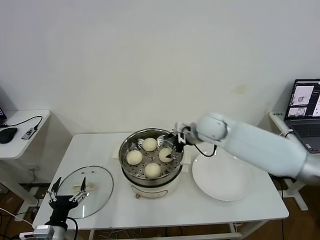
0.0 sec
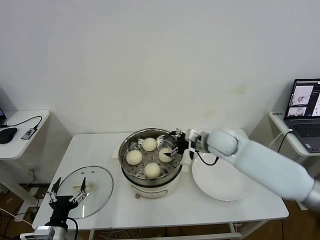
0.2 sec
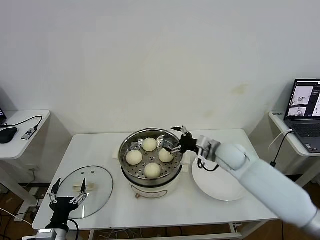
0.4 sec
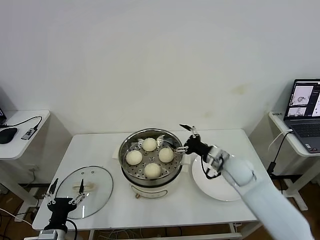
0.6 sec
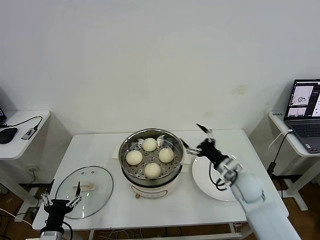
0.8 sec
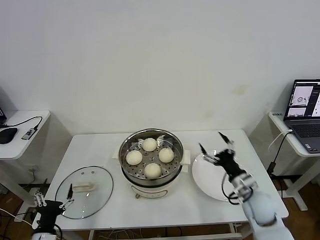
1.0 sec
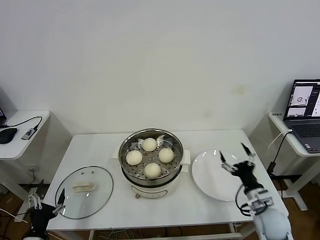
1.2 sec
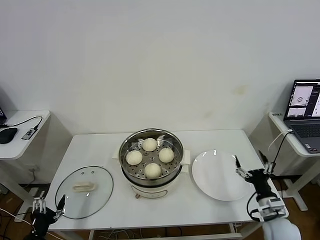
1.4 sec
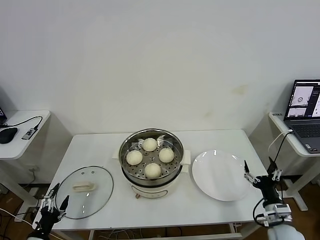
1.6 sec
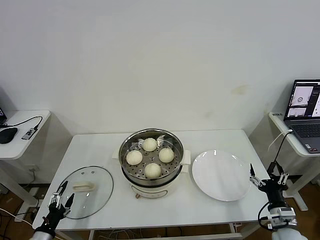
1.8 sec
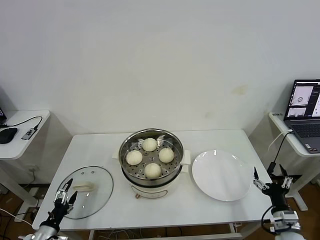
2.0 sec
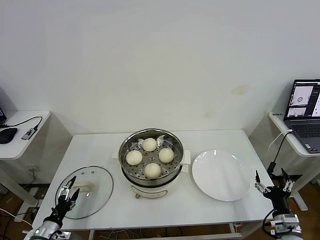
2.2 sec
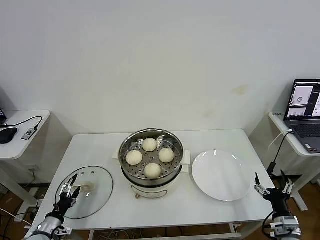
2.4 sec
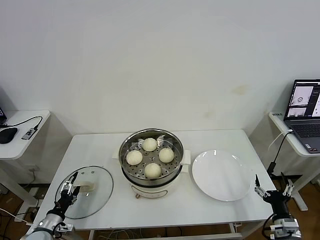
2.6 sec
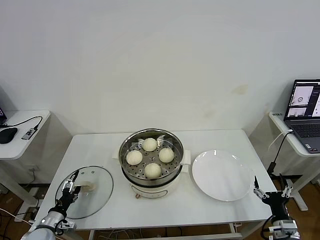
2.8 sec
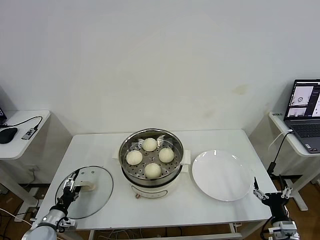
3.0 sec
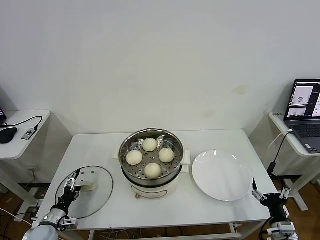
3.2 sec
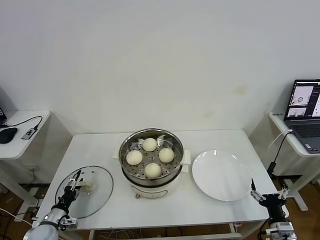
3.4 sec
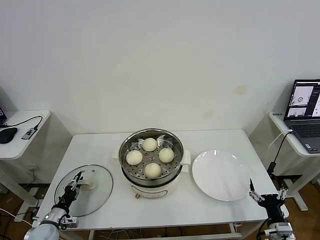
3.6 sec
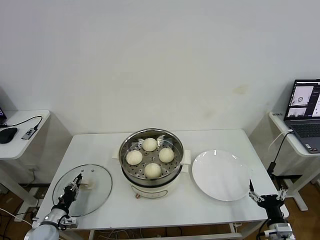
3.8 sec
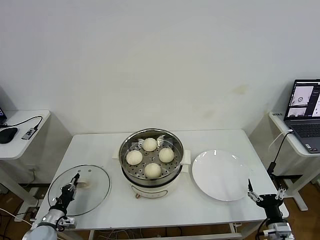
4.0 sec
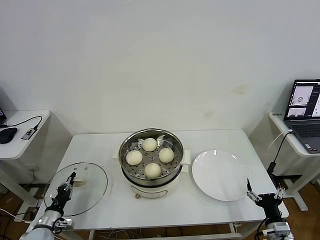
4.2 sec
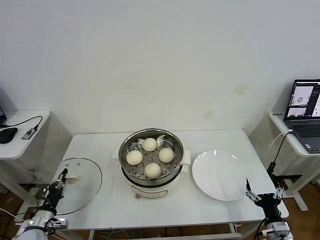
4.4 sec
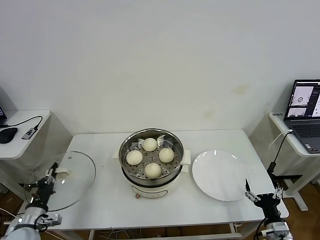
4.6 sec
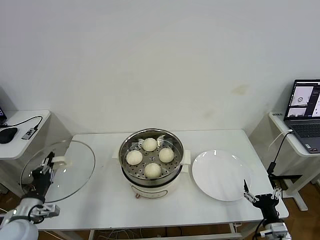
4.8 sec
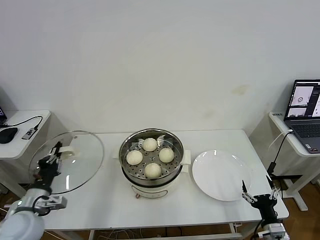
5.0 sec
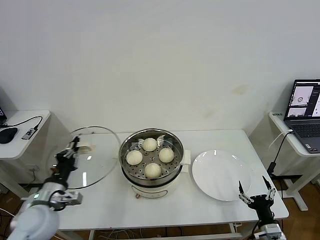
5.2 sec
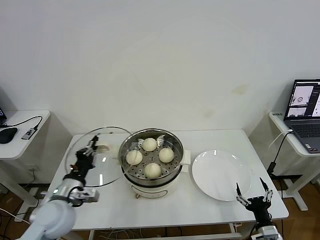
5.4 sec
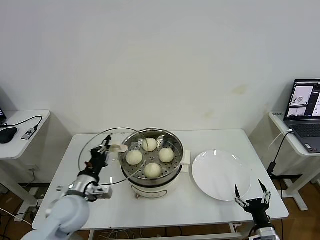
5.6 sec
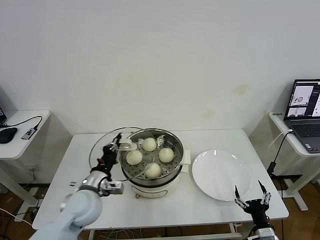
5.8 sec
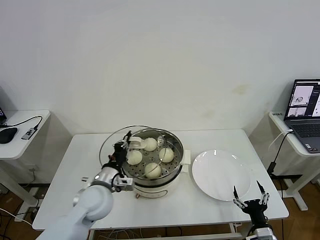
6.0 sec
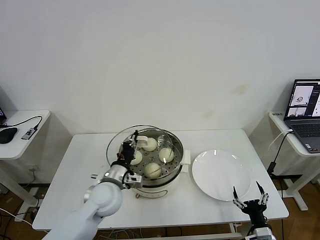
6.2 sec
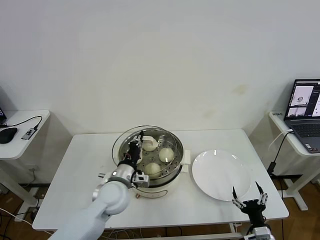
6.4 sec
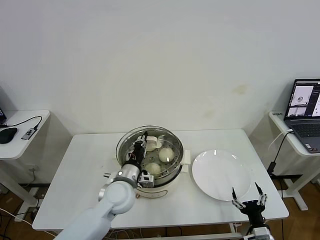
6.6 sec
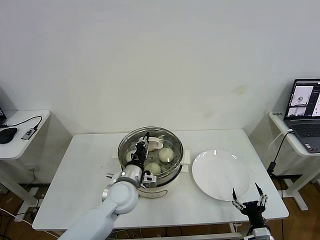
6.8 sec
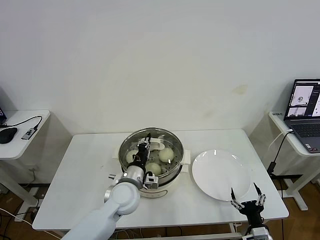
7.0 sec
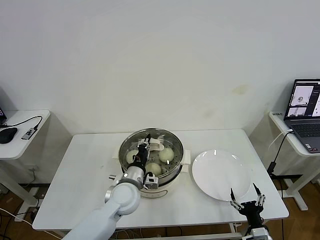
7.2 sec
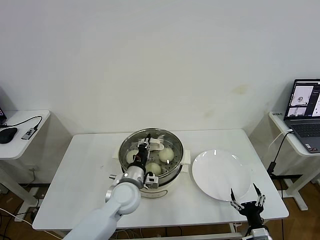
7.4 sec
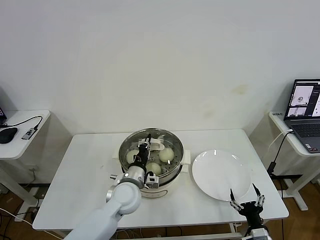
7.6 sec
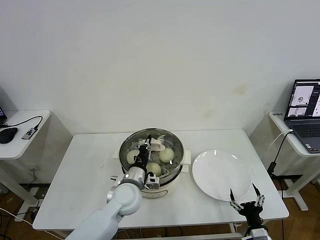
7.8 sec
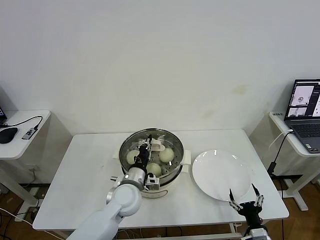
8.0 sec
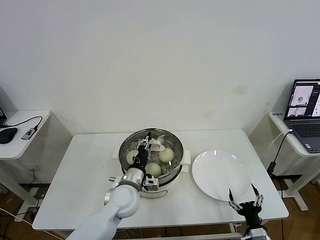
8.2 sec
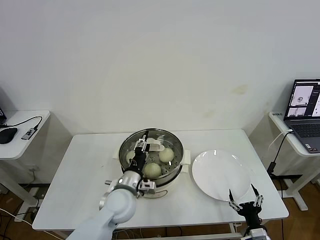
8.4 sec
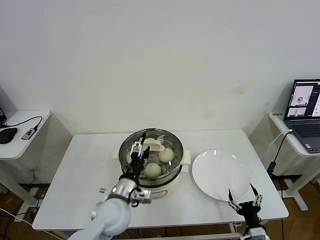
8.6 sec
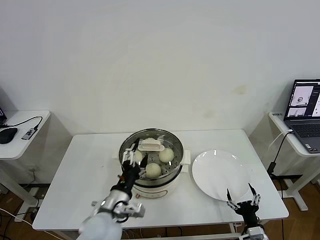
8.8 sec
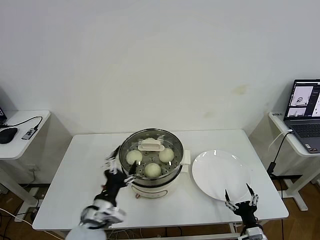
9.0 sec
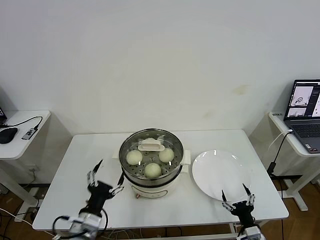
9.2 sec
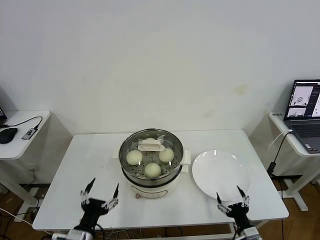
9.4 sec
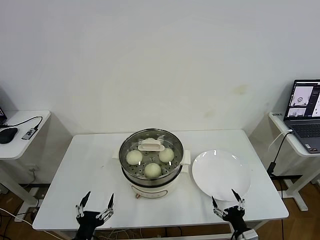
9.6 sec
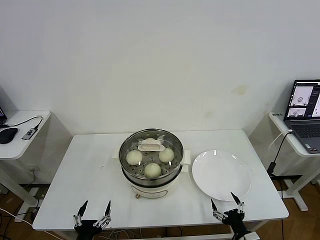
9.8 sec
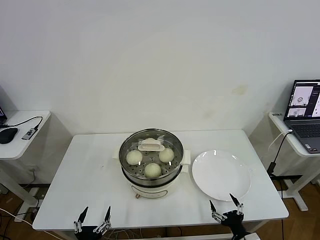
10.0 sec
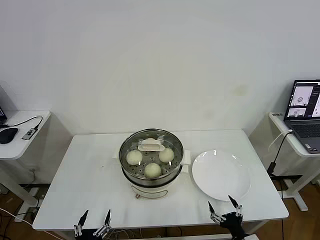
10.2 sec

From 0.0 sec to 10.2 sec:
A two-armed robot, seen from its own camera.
Task of the whole recording: take steamed baozi put them in steamer then cover it.
Step, from 0.0 sec to 4.0 sec: Grasp the pot lid with left gripper.
Step, from 4.2 sec to 8.8 sec: Place the pot lid on the steamer with left gripper.
From 0.0 sec to 1.4 sec: The left gripper travels to the left by approximately 10 cm. Meanwhile the right gripper shifts roughly 40 cm backward, to the right and downward.
From 1.4 sec to 3.0 sec: The left gripper heads forward and downward, covering about 15 cm. The right gripper travels backward by approximately 5 cm.
From 3.0 sec to 4.4 sec: The left gripper closes up.
From 4.4 sec to 5.8 sec: The left gripper goes roughly 25 cm to the right and upward.
From 5.8 sec to 7.2 sec: The left gripper is displaced to the right by about 10 cm.
From 7.2 sec to 8.8 sec: The left gripper goes roughly 10 cm backward, and opens its fingers.
From 8.8 sec to 10.2 sec: The left gripper heads backward, downward and to the left, covering some 25 cm.
